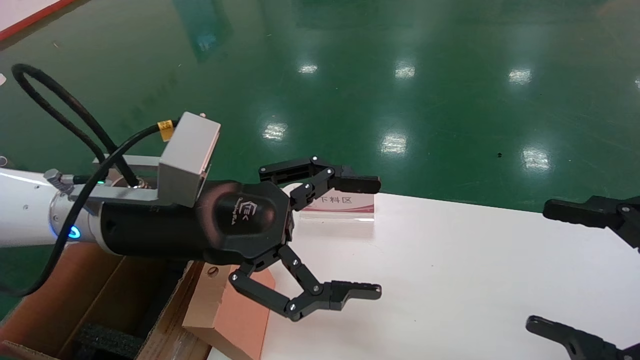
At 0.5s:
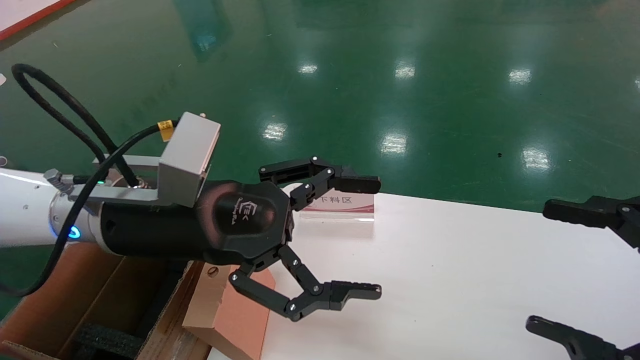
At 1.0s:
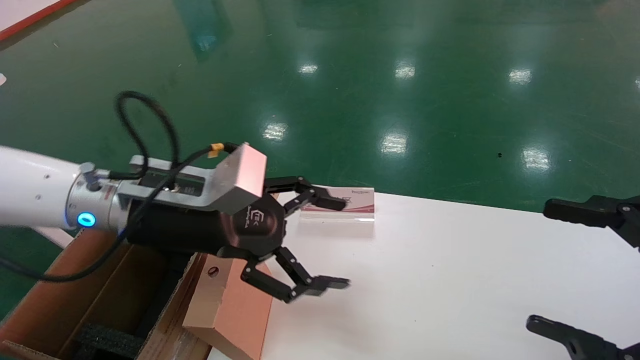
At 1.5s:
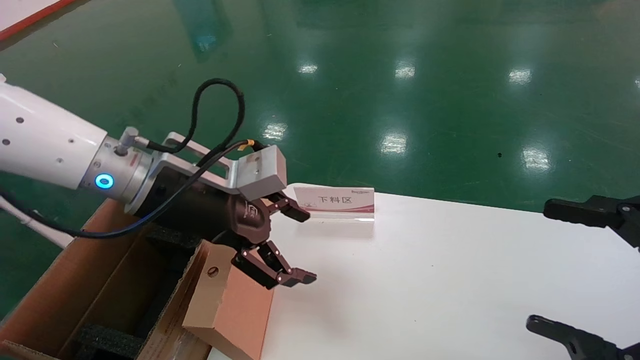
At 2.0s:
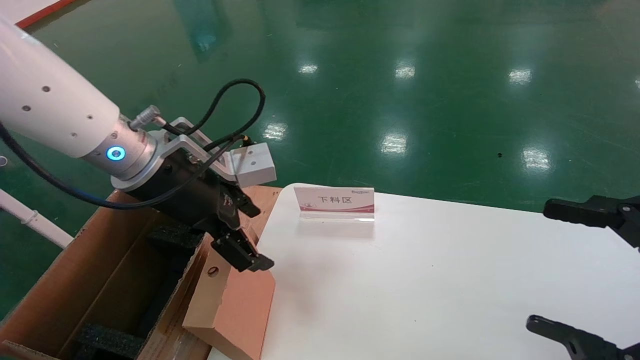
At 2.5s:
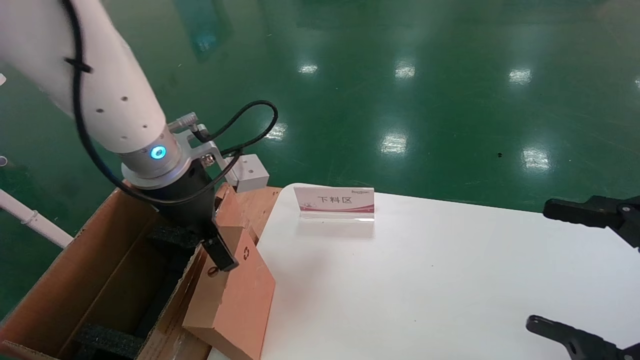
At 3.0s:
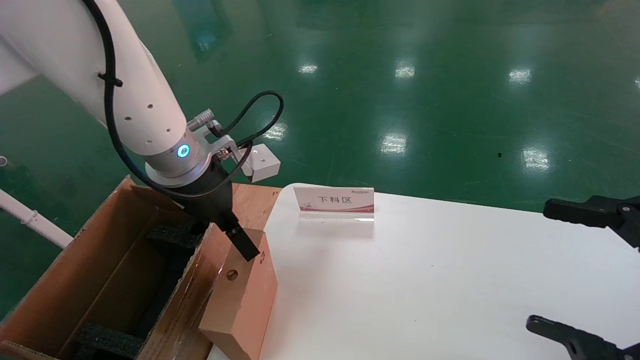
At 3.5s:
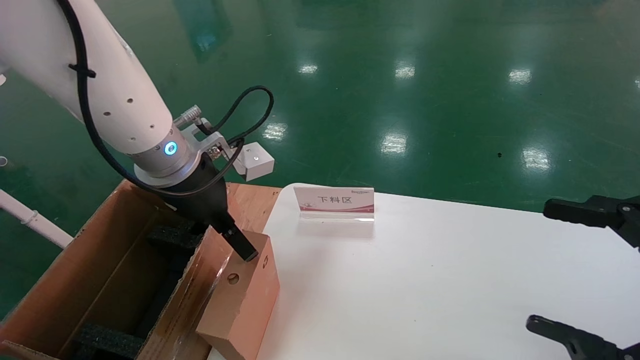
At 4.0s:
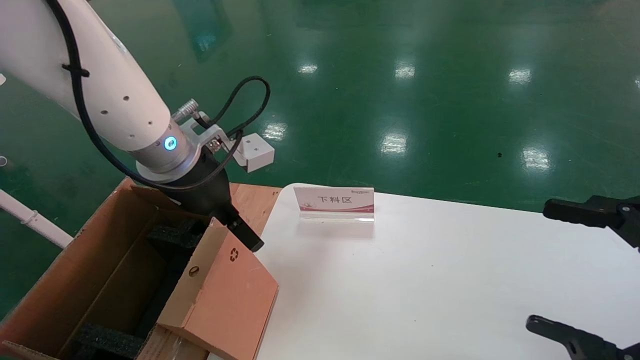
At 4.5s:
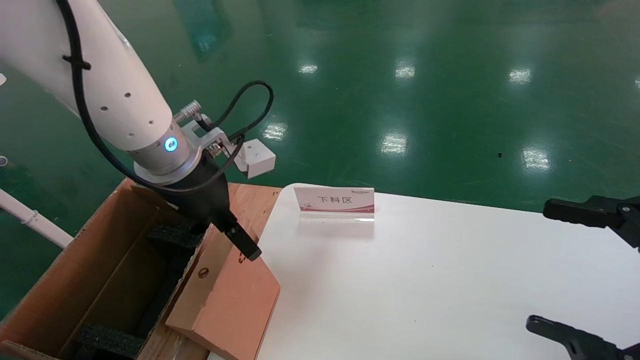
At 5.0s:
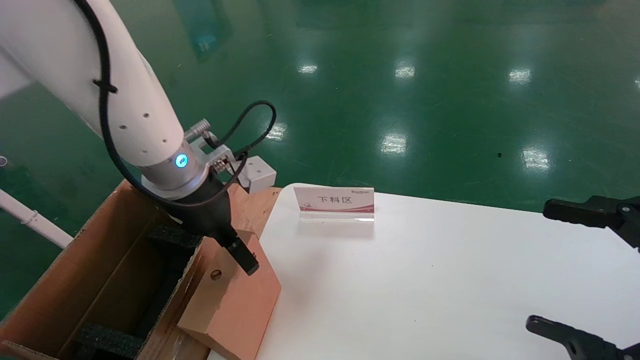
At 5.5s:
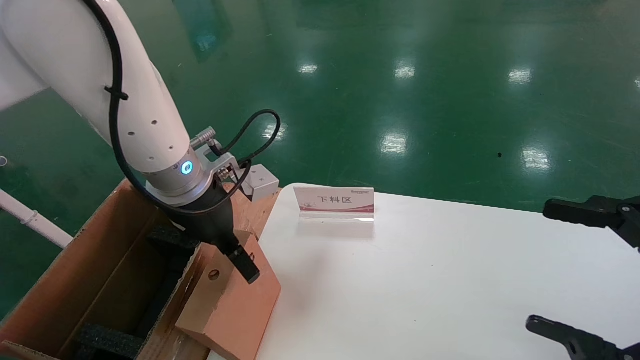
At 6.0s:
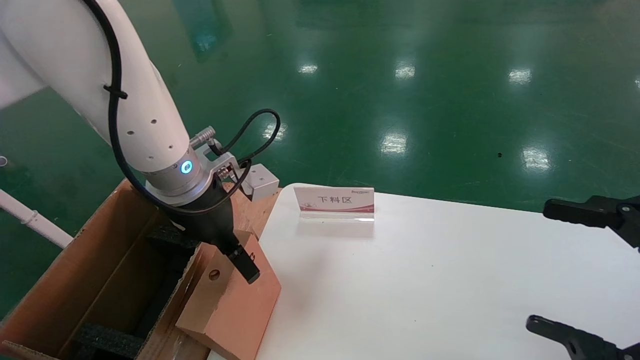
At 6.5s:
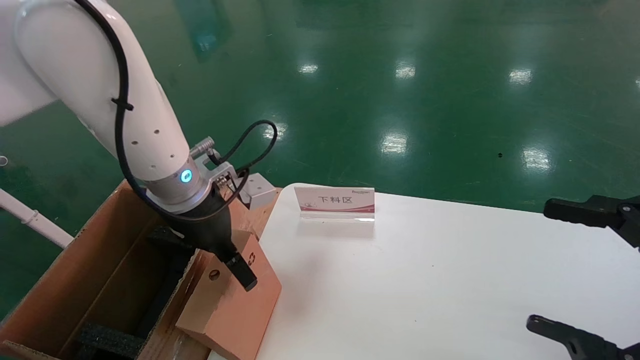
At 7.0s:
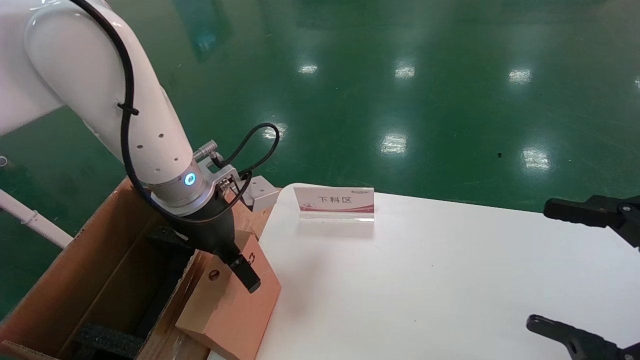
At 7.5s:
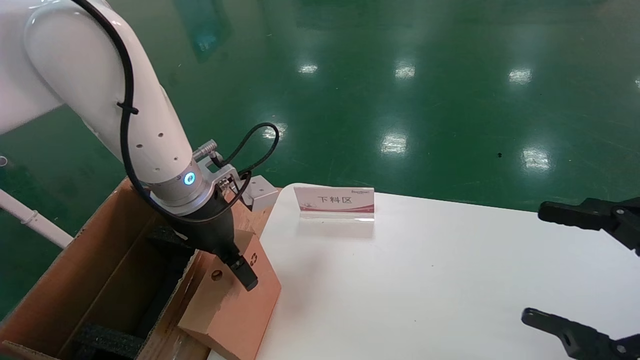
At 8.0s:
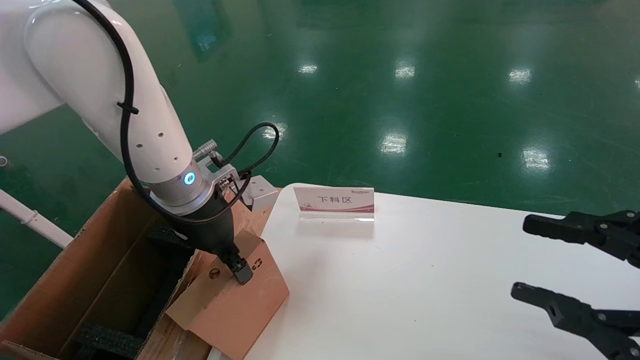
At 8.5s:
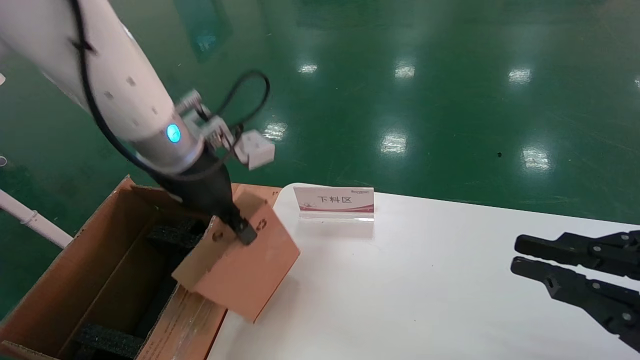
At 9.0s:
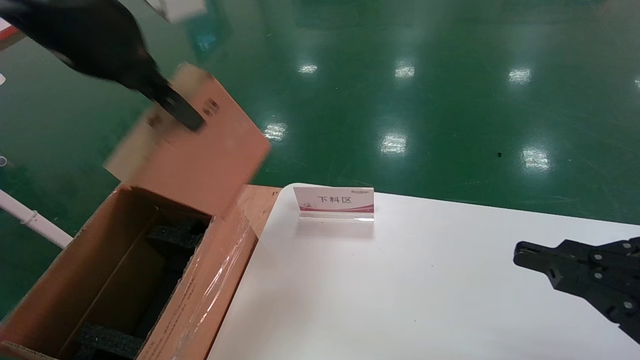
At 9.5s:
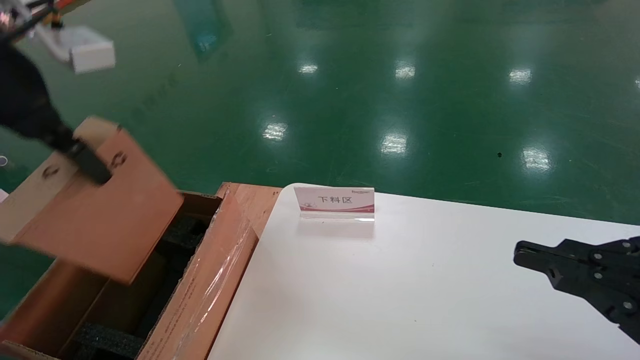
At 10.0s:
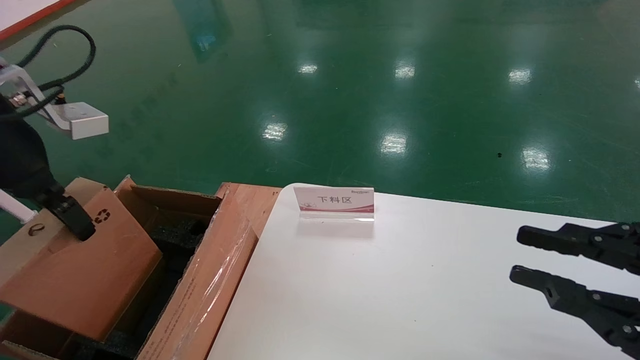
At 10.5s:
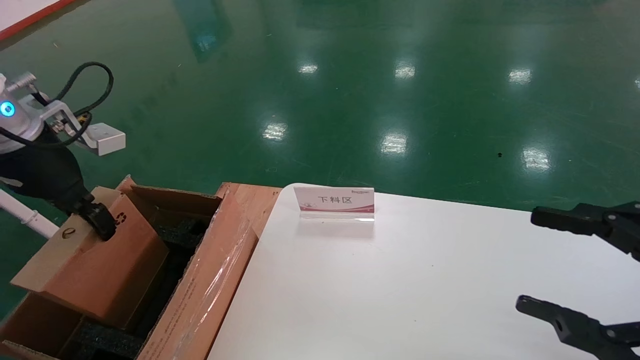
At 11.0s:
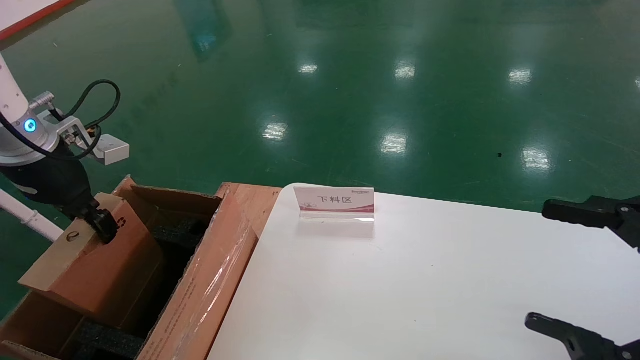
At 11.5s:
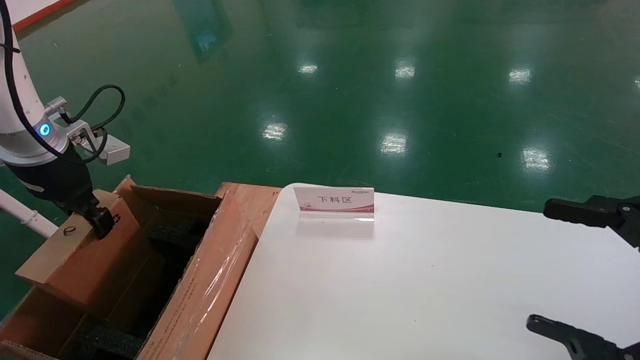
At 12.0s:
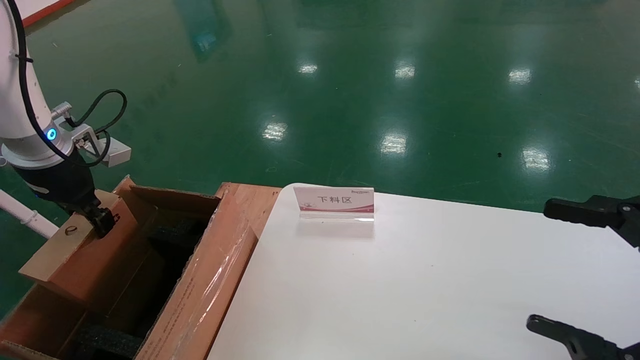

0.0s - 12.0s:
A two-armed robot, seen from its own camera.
Task of the whole recording: pick up the small cardboard box and load it into the large cardboard box.
Step, 1.0s - 8.0s: Pick up the mouse and power cord box.
0.0s - 2.0s: The left gripper travels forward by some 5 cm.
4.0s - 6.0s: There are only small adjustments of the grippers.
6.0s - 8.0s: The left gripper closes up. The right gripper closes.
8.0s - 10.0s: The right gripper closes. Meanwhile the left gripper travels to the left, upward and backward by approximately 20 cm.
10.0s - 12.0s: The right gripper opens. The left gripper goes about 15 cm forward, downward and to the left.

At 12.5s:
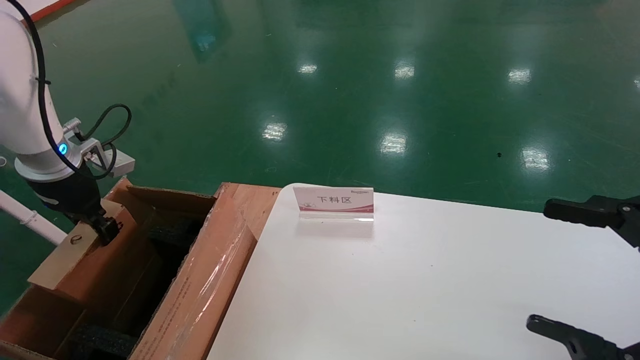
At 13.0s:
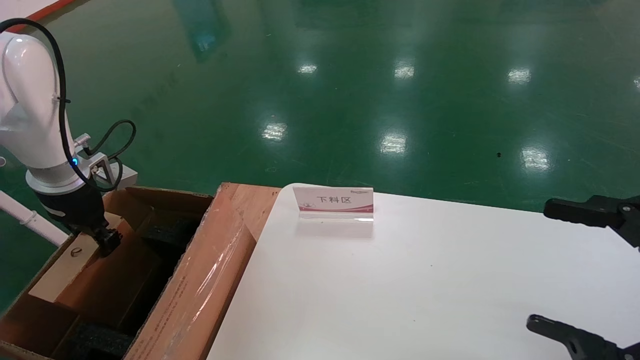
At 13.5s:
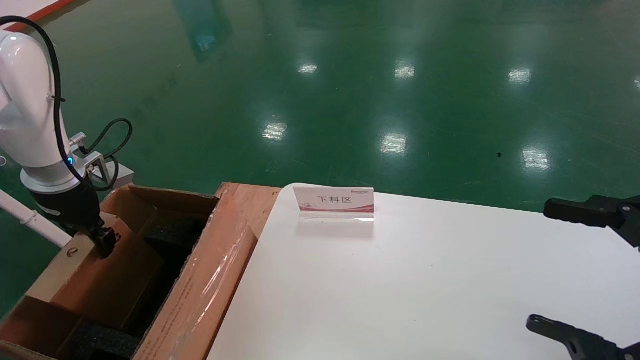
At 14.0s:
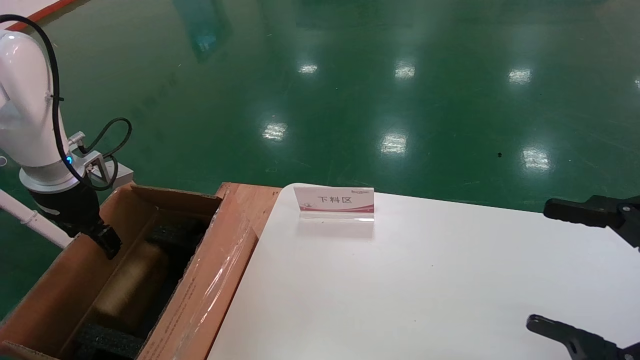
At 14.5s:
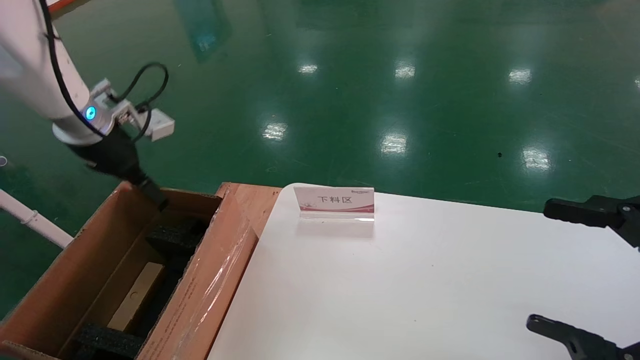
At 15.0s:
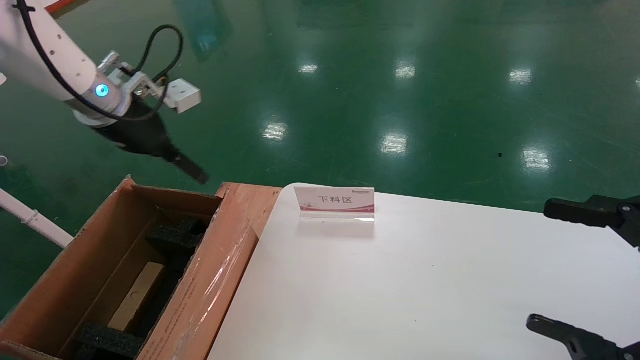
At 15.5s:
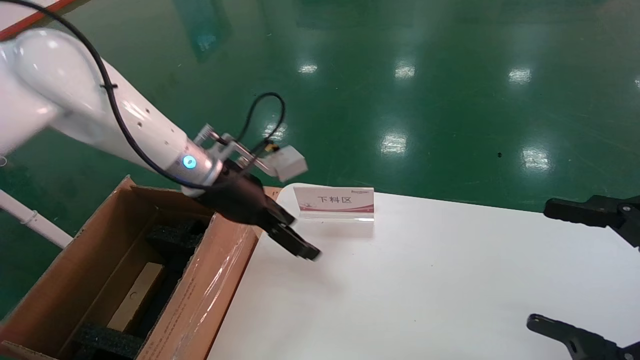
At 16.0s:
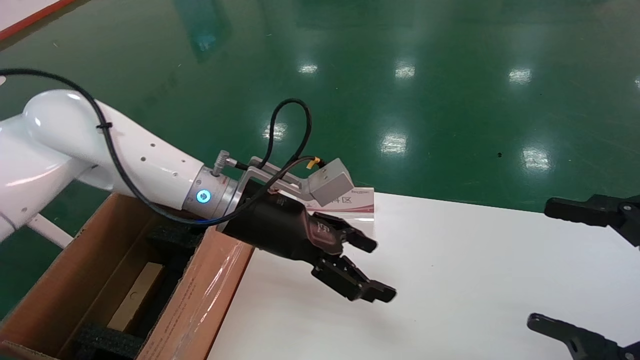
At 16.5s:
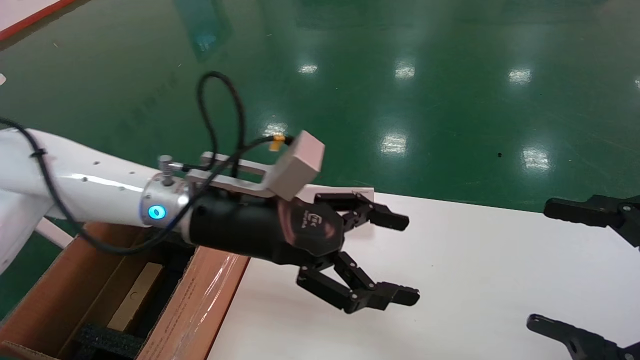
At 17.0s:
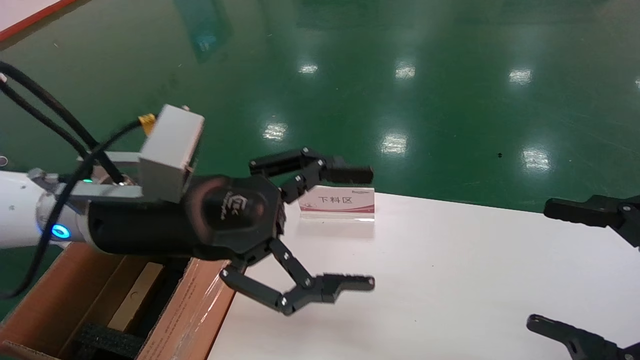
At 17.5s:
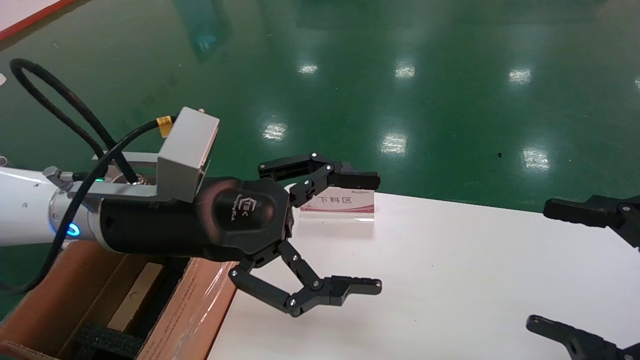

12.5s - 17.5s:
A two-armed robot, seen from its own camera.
Task of the whole recording: pick up the small cardboard box and load it into the large cardboard box.
12.5s - 15.0s: The left gripper goes some 15 cm to the right and upward, and opens.
15.0s - 17.5s: The left gripper shifts roughly 20 cm backward and to the right.
